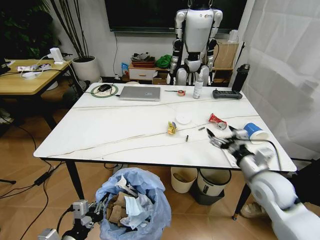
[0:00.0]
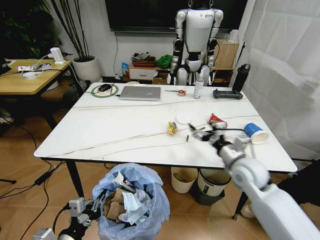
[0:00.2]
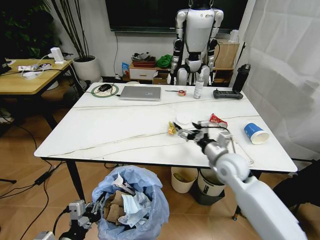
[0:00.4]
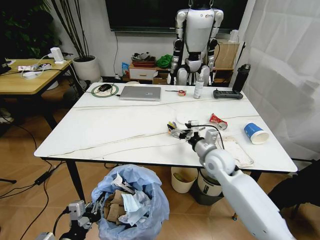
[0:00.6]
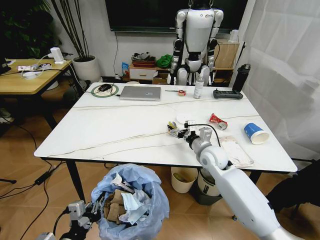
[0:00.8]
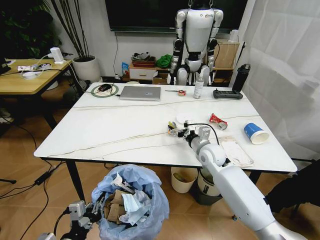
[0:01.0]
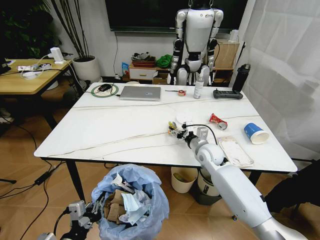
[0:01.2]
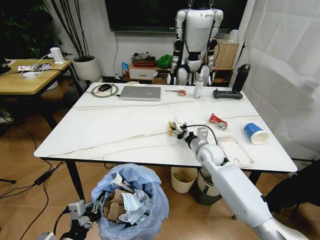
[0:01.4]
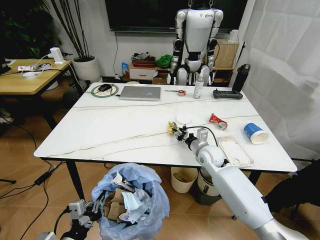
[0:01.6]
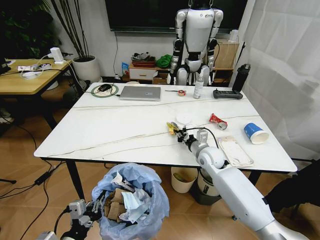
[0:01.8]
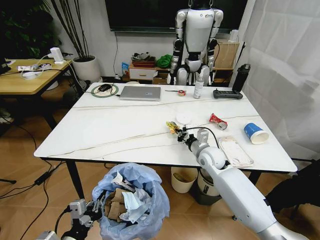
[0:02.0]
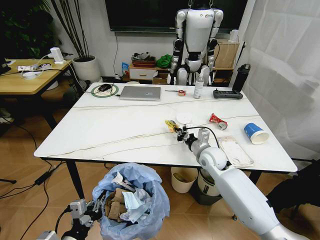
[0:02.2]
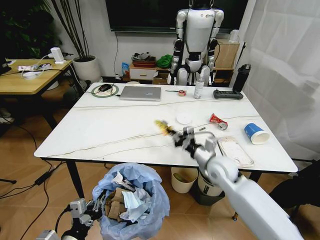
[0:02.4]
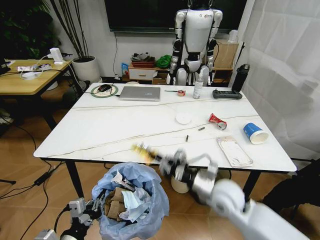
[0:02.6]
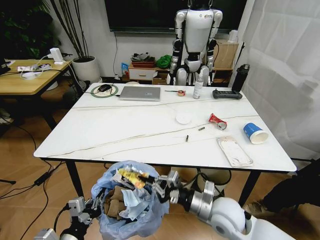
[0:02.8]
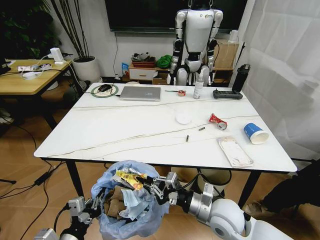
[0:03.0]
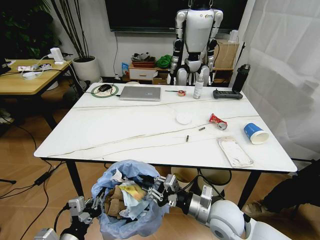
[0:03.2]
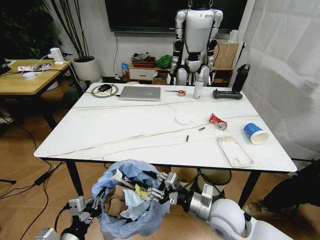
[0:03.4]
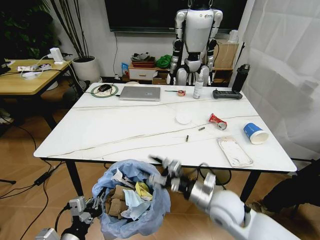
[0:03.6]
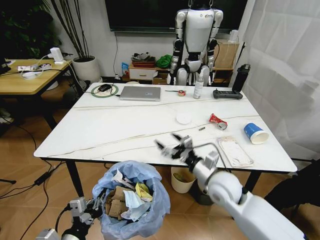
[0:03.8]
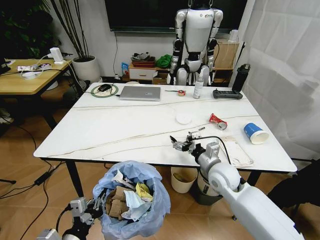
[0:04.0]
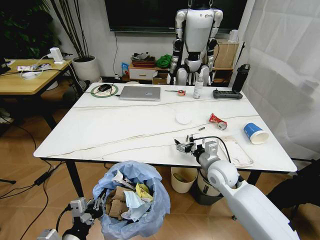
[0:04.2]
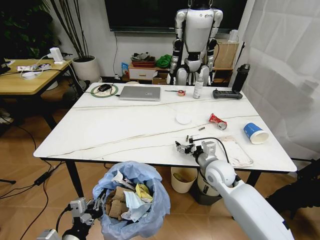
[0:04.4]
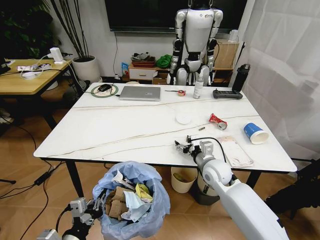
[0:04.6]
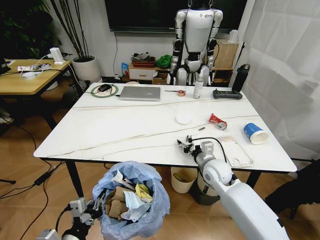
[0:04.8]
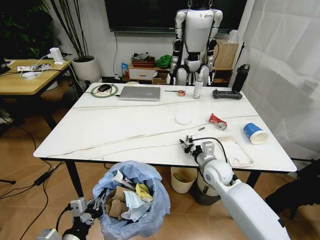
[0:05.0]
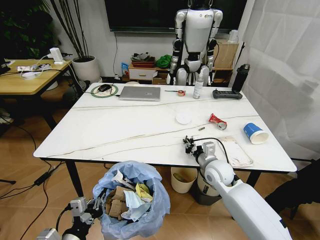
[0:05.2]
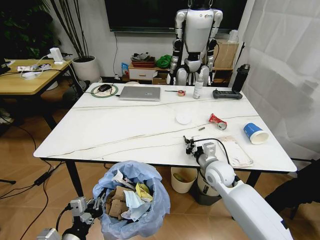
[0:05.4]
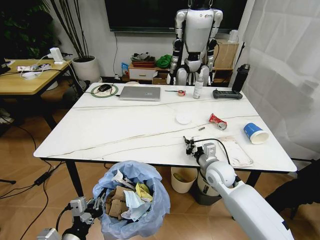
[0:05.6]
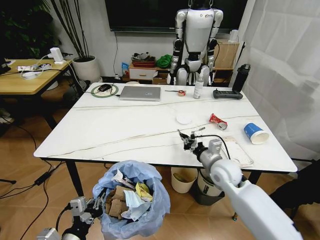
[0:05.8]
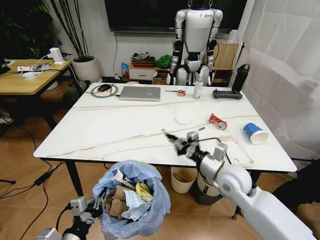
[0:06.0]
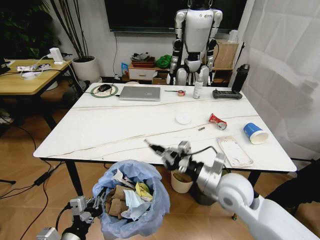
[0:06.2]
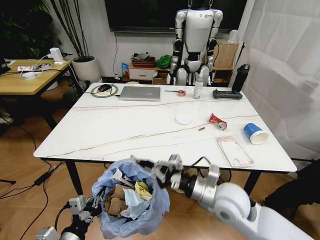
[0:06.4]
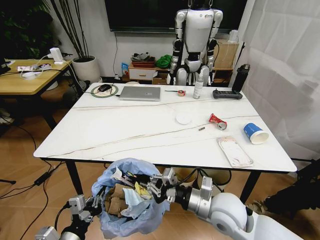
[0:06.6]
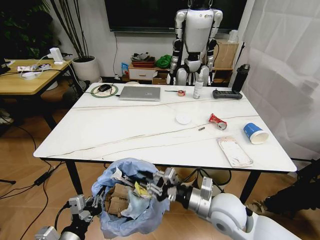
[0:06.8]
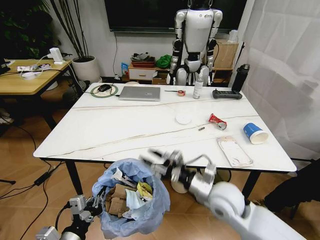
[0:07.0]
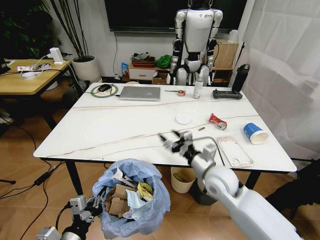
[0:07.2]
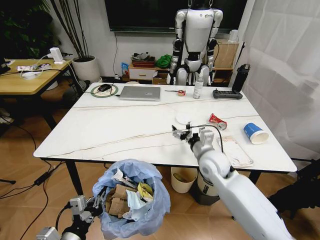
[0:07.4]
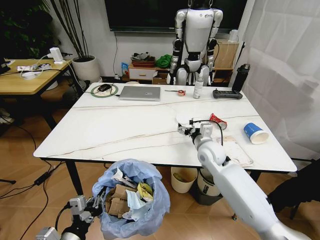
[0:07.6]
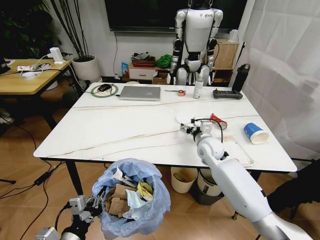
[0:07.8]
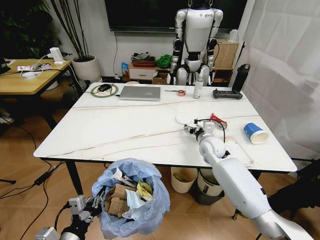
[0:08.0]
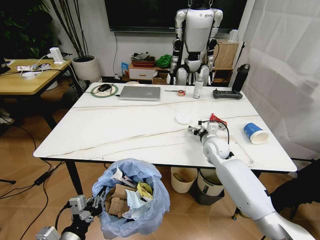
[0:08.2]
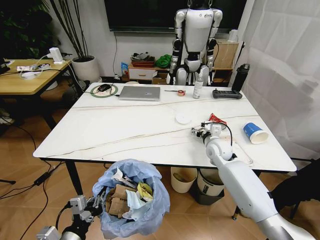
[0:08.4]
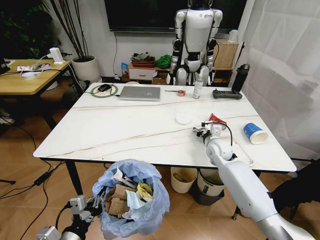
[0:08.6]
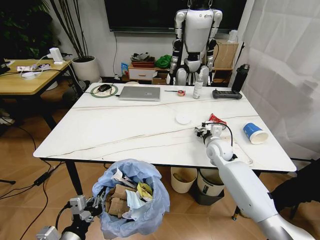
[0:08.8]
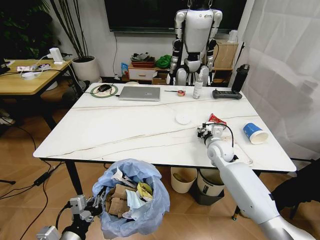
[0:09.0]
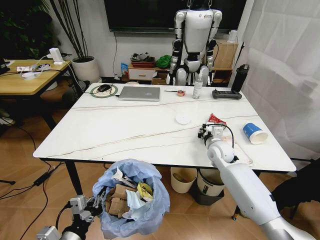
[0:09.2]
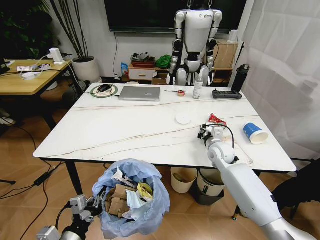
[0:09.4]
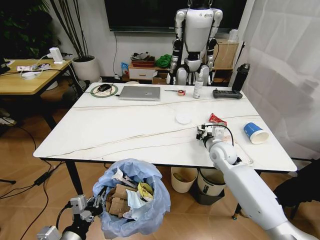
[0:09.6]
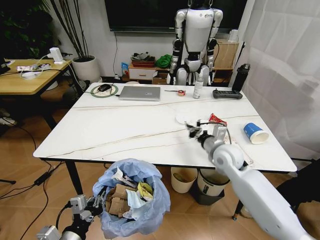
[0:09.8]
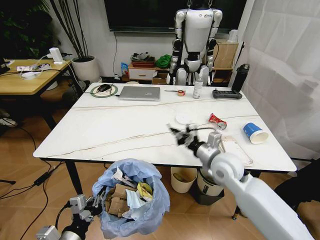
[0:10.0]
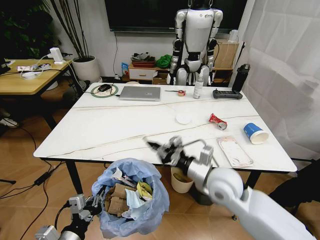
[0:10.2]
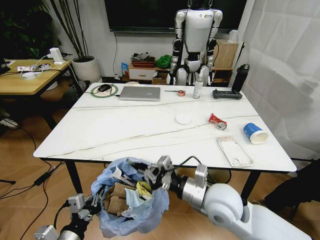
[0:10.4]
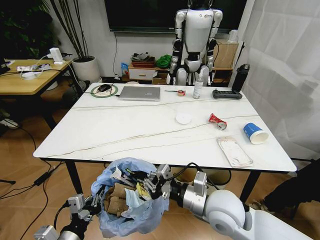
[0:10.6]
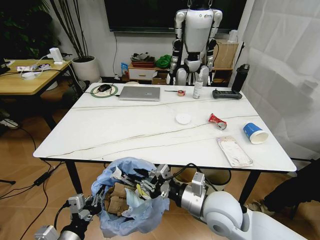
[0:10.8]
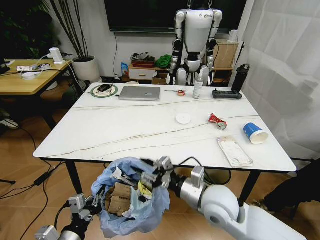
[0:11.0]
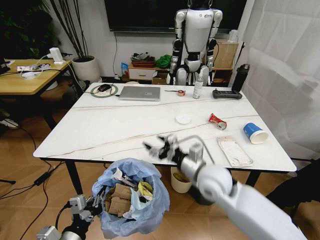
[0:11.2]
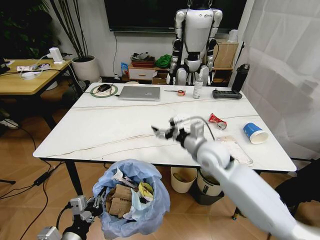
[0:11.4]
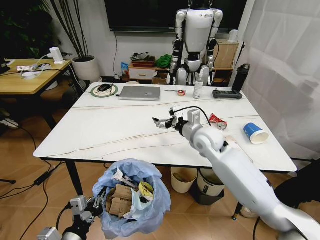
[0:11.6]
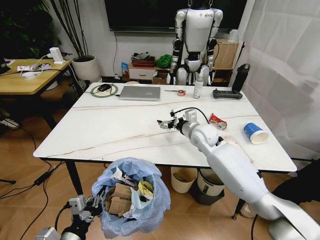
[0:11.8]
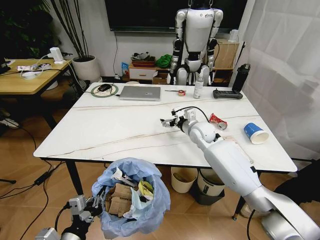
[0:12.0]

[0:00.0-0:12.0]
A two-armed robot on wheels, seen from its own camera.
Task of the whole recording: Pick up the trash bin and place the trash from the table into it.
0:00.0 to 0:01.6: The right gripper travels forward, to the left and downward by about 20 cm, and closes its fingers.
0:01.6 to 0:03.0: The right gripper shifts approximately 20 cm backward.
0:03.0 to 0:04.4: The right gripper goes about 15 cm forward, and opens.
0:04.4 to 0:06.0: The right gripper travels upward and backward by about 5 cm, and closes.
0:06.0 to 0:07.6: The right gripper shifts approximately 10 cm forward, and opens.
0:07.6 to 0:09.0: The right gripper goes some 5 cm to the right, and closes.
0:09.0 to 0:10.4: The right gripper heads backward, covering some 20 cm, and closes.
0:10.4 to 0:12.0: The right gripper is displaced forward by some 25 cm, and opens its fingers.

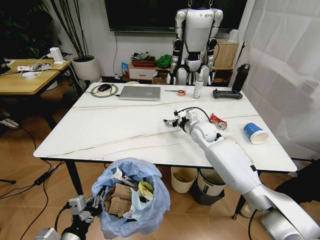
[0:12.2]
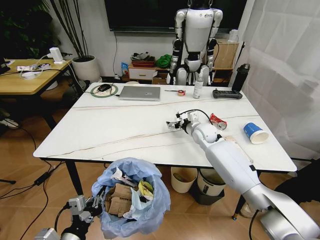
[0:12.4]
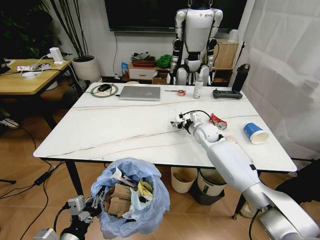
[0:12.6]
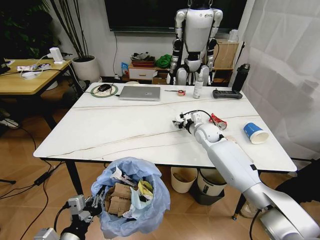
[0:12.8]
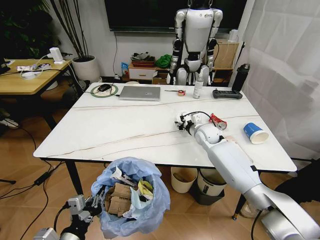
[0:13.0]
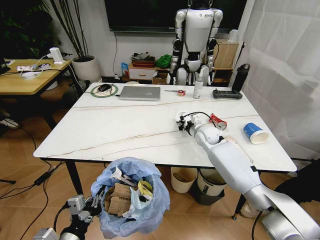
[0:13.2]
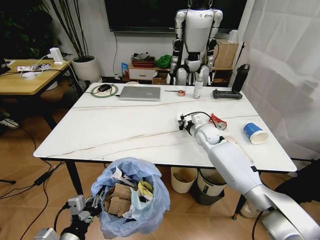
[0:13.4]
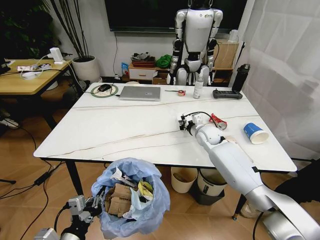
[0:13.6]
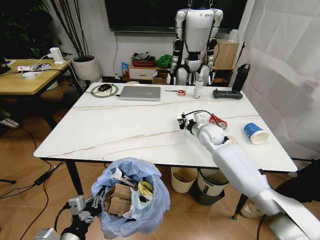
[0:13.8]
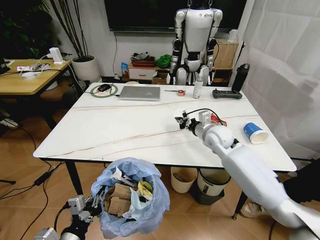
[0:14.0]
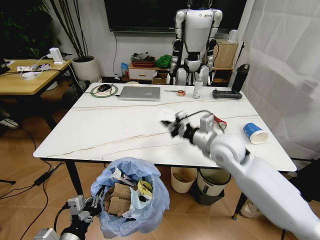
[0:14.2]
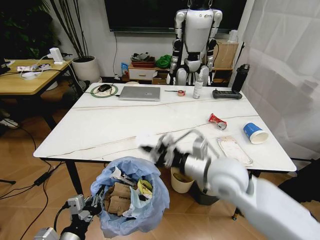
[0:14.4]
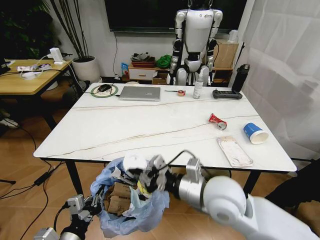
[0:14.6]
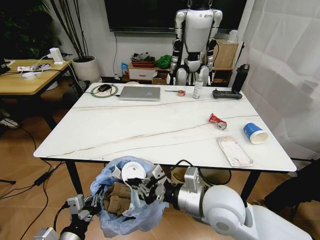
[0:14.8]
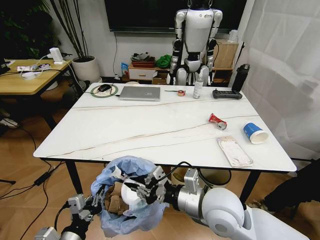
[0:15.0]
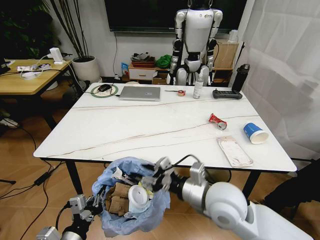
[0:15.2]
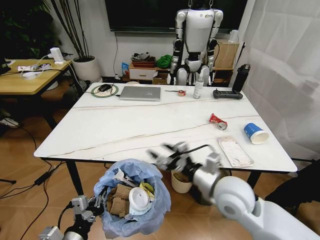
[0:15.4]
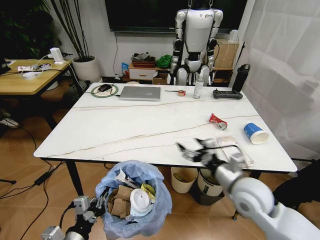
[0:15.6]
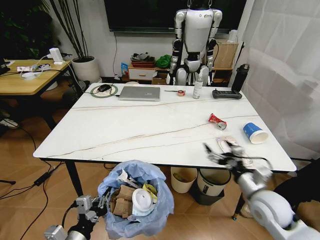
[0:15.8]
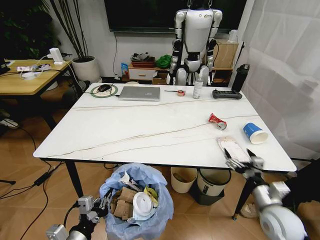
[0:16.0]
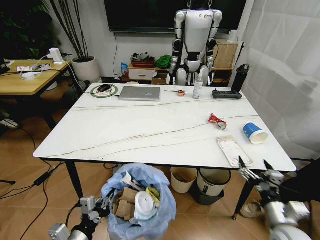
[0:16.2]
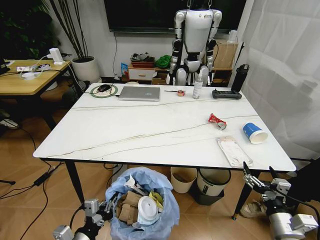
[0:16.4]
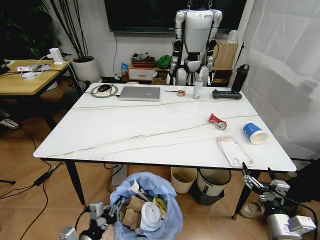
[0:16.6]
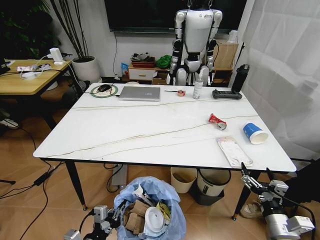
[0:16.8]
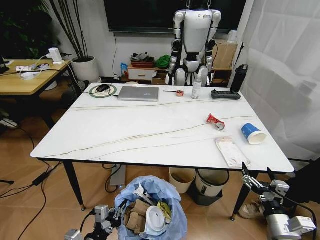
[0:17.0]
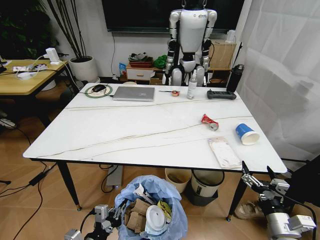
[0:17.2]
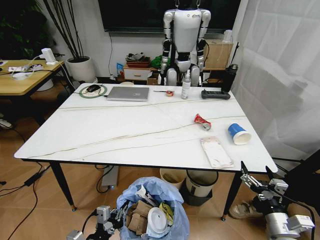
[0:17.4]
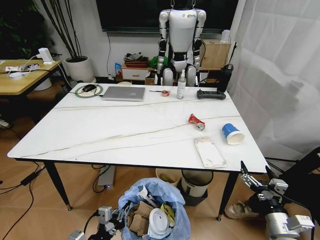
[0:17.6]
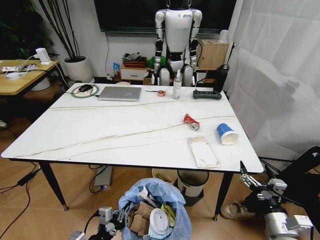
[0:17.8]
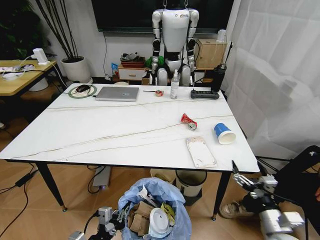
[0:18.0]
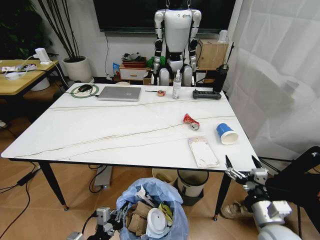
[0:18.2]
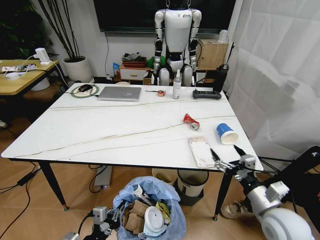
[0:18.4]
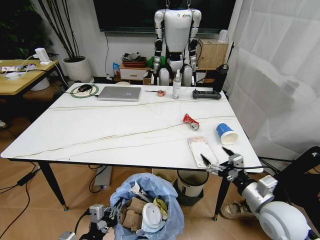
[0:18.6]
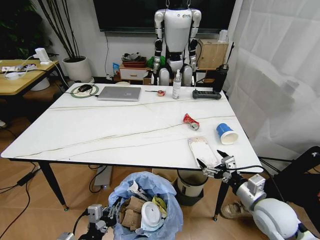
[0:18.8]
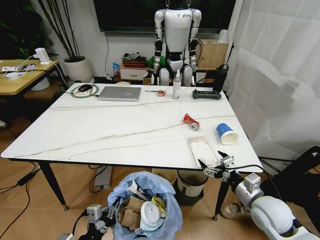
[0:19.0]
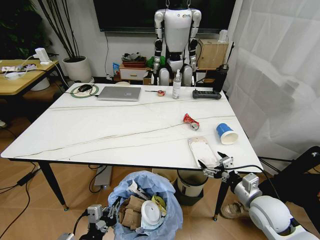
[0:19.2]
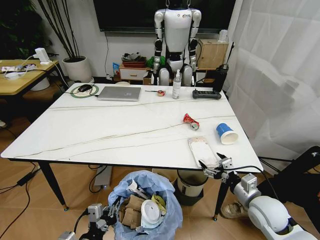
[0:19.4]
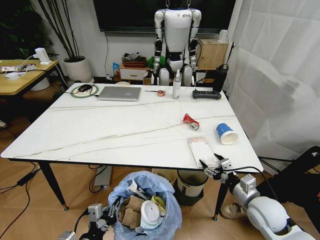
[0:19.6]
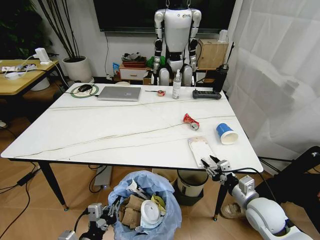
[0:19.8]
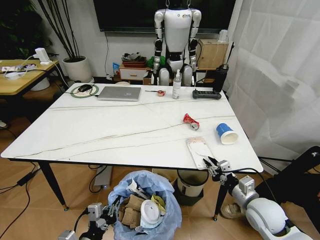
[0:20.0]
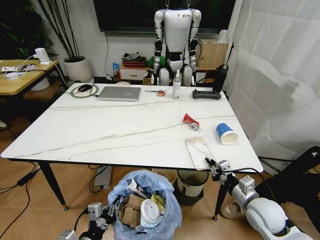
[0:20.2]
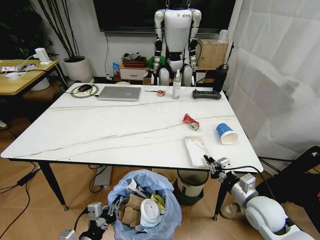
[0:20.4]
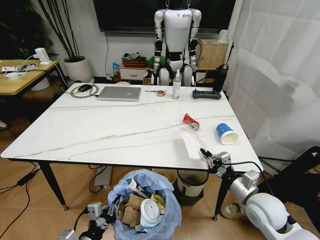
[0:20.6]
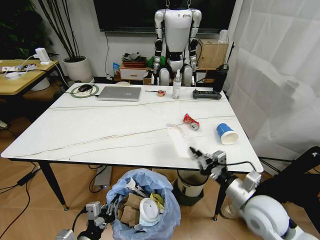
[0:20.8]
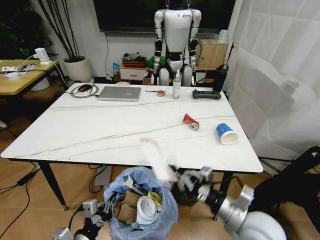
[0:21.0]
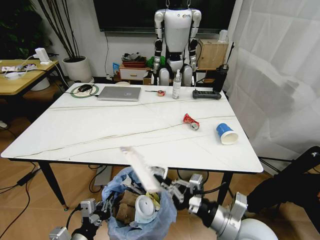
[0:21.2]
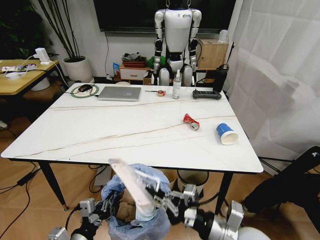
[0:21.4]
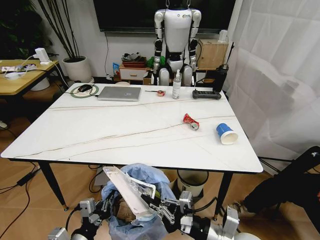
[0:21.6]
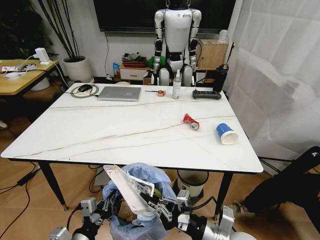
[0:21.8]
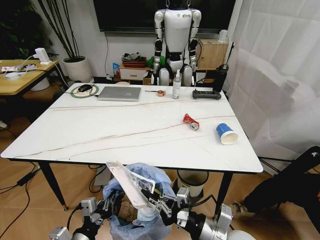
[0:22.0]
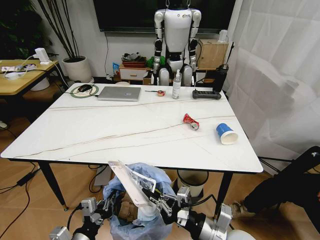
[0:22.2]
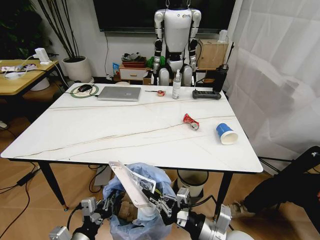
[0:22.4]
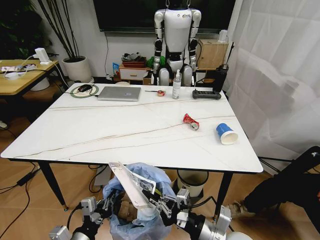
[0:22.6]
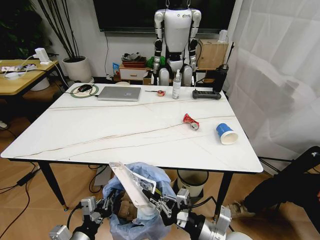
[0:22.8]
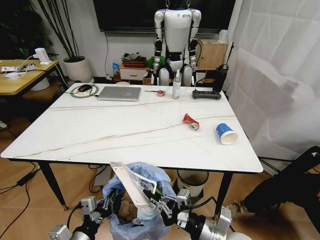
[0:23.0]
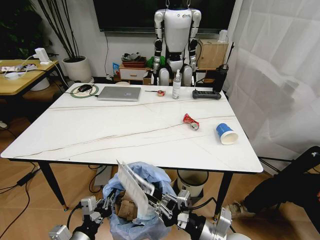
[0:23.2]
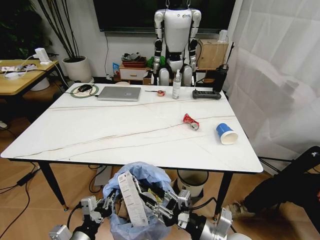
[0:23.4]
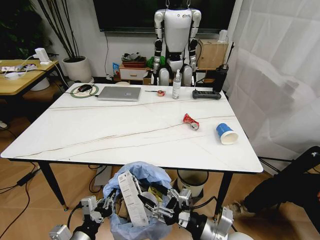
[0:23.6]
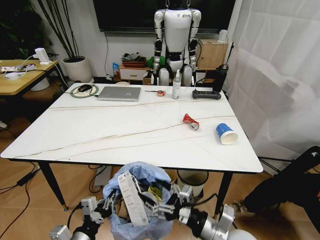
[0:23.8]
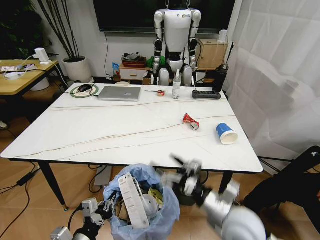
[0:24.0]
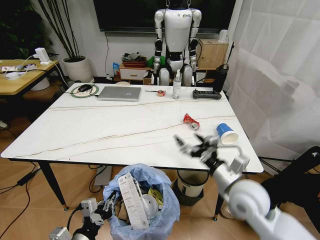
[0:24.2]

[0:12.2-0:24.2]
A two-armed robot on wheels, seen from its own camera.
Task of the whole recording: Pick up the trash bin and place the trash from the table into it.
0:12.2 to 0:13.8: The right gripper closes its fingers.
0:13.8 to 0:15.2: The right gripper heads backward, covering approximately 30 cm, and opens.
0:15.2 to 0:16.6: The right gripper heads to the right, downward and backward, covering some 25 cm, and opens its fingers.
0:16.6 to 0:18.2: The right gripper changes place by approximately 5 cm.
0:18.2 to 0:19.8: The right gripper goes approximately 5 cm forward, and closes up.
0:19.8 to 0:21.2: The right gripper heads to the left, backward and upward, covering roughly 15 cm, and closes.
0:21.2 to 0:22.6: The right gripper moves about 5 cm.
0:22.6 to 0:24.2: The right gripper goes about 15 cm forward and upward, and opens.
